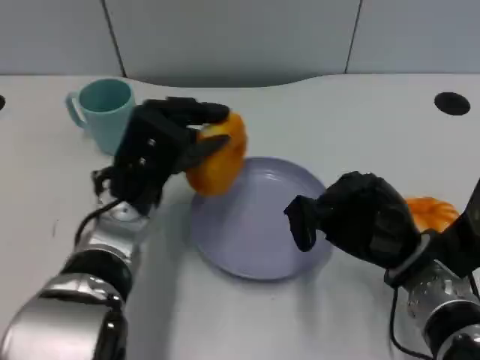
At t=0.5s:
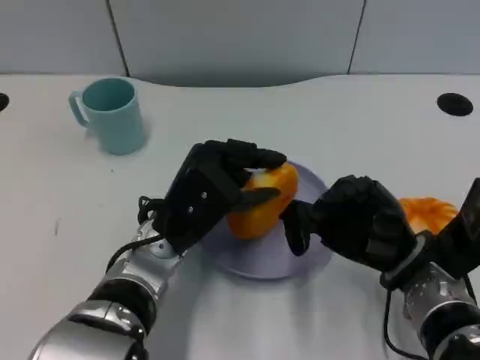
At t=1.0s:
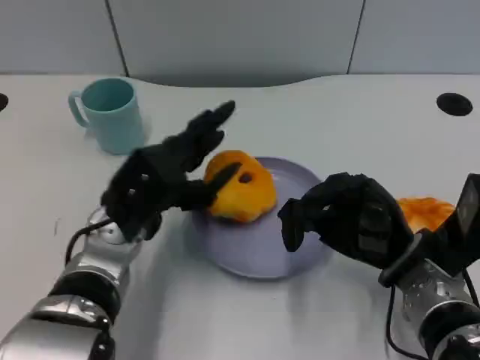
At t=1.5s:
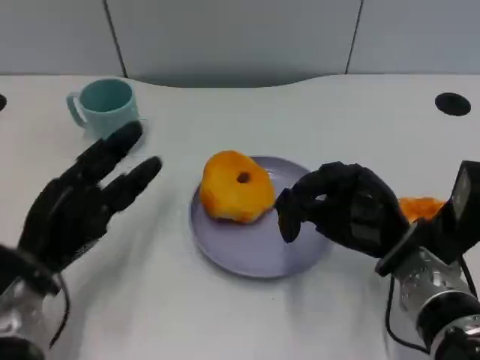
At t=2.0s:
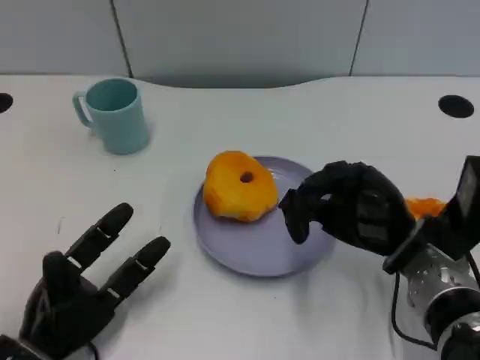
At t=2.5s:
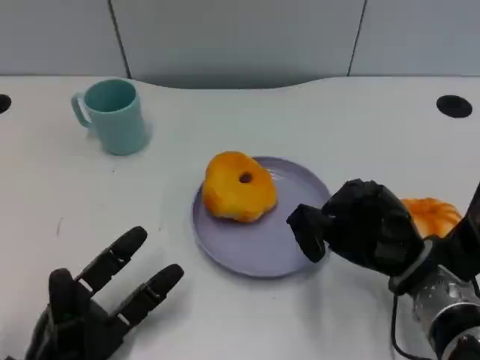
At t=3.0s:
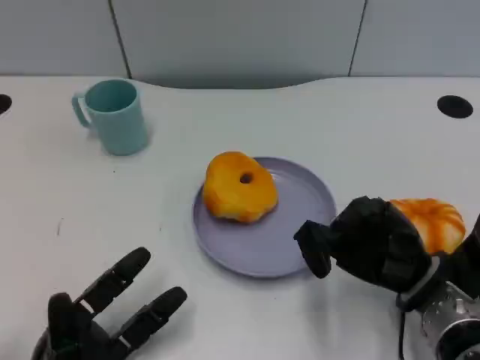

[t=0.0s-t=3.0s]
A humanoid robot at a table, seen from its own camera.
Task of the whole recording: Grasp the bread from the table and place it into the plate.
t=0.0s to t=1.5s: The left hand moves to the left, downward and backward, about 15 cm.
t=1.5s to t=3.0s: The left hand heads backward and downward, covering about 10 cm.

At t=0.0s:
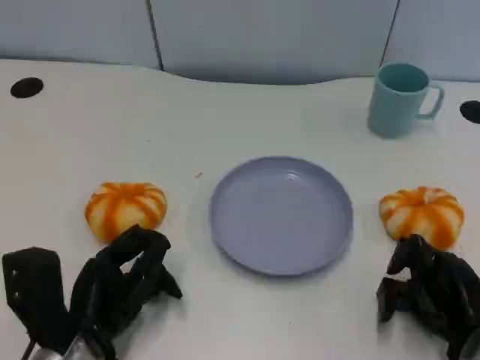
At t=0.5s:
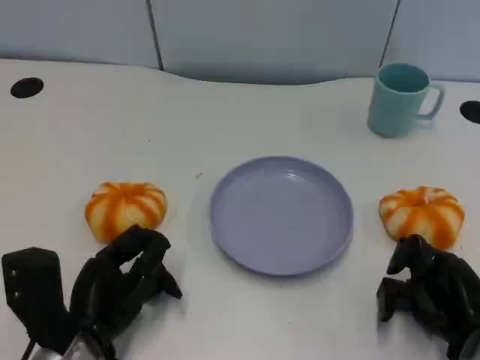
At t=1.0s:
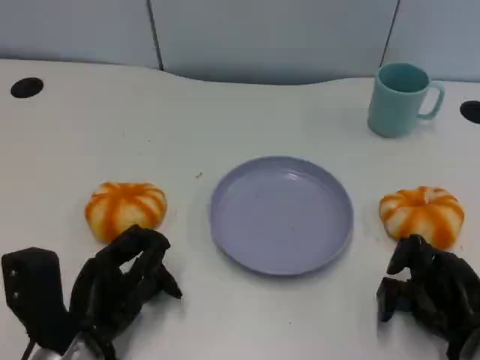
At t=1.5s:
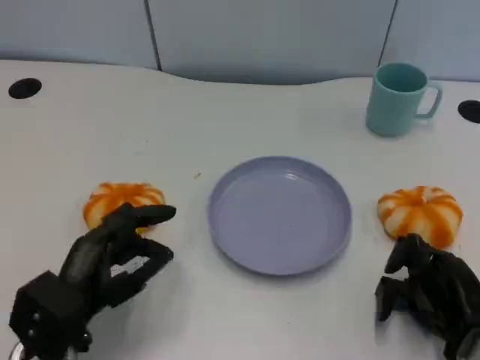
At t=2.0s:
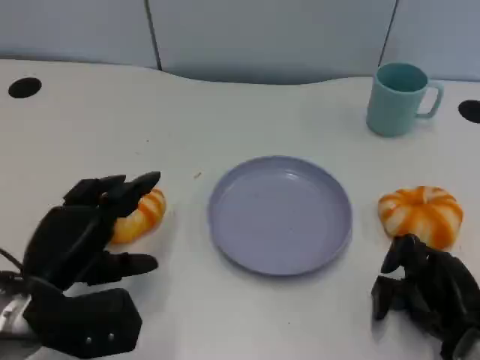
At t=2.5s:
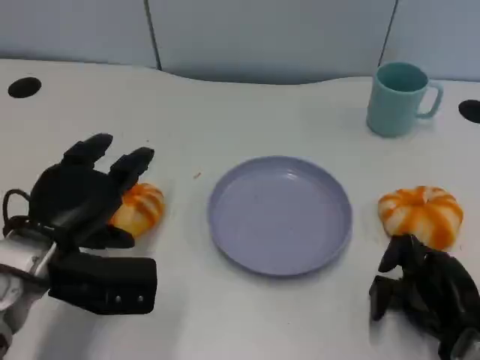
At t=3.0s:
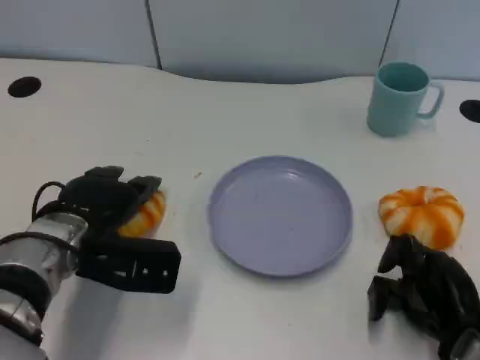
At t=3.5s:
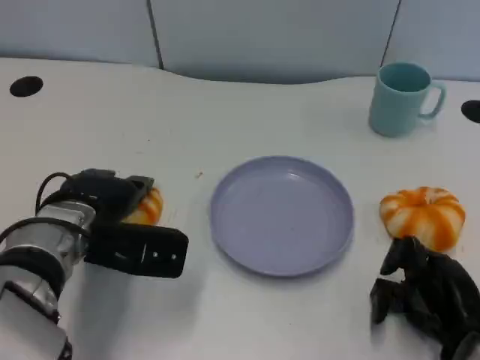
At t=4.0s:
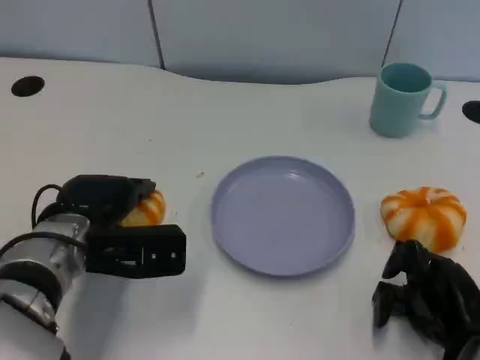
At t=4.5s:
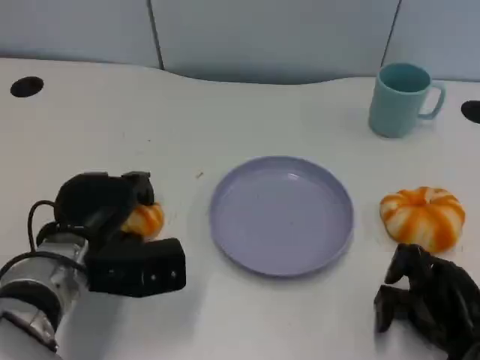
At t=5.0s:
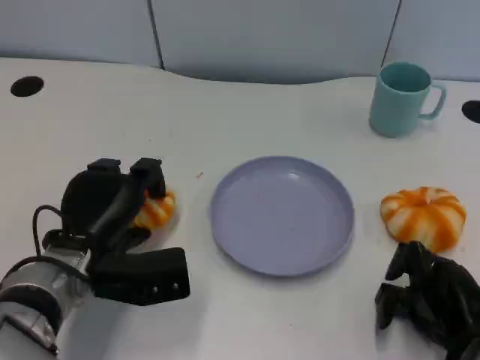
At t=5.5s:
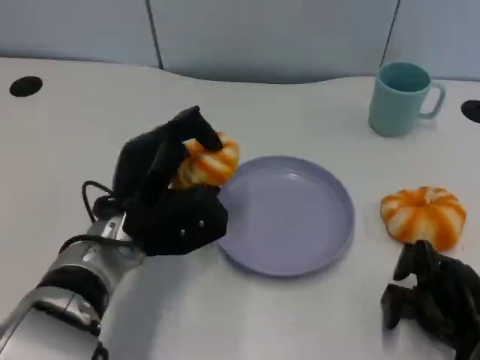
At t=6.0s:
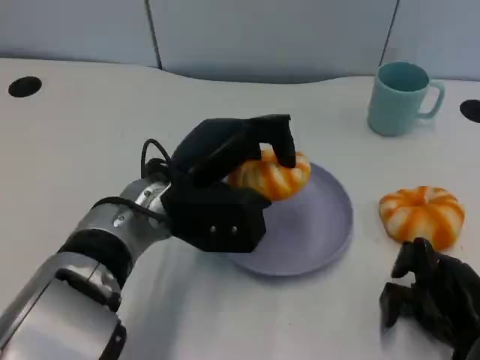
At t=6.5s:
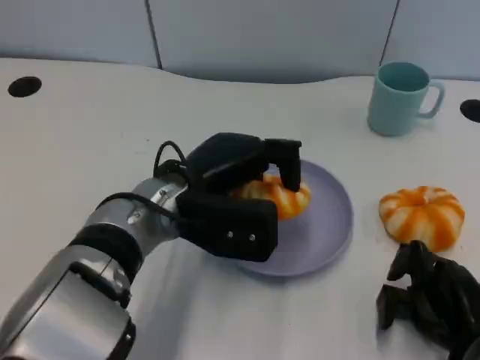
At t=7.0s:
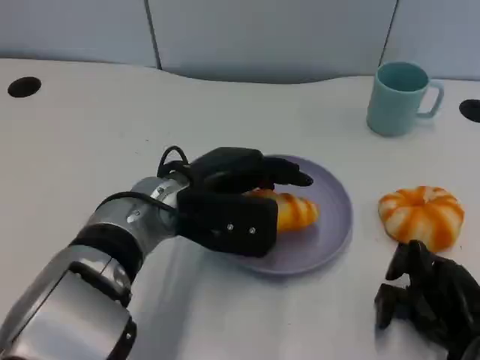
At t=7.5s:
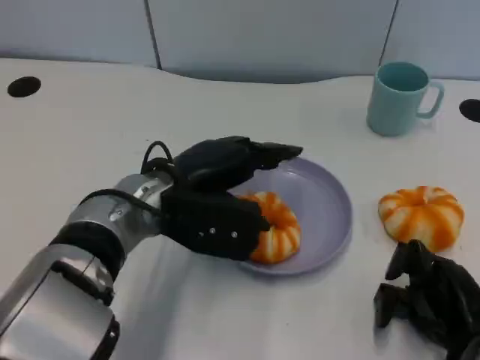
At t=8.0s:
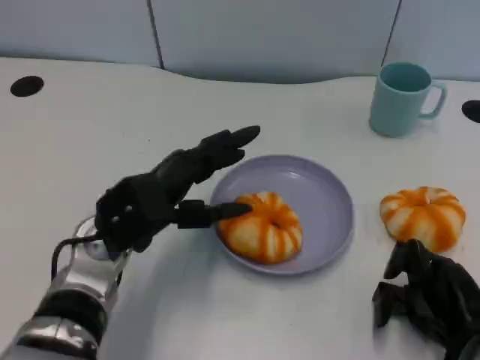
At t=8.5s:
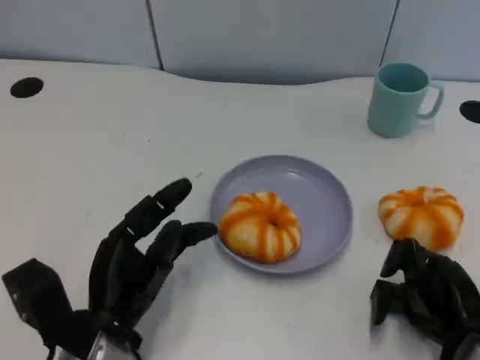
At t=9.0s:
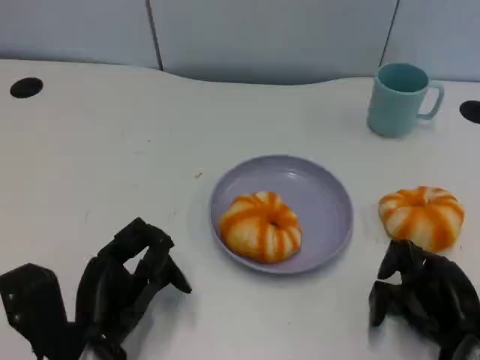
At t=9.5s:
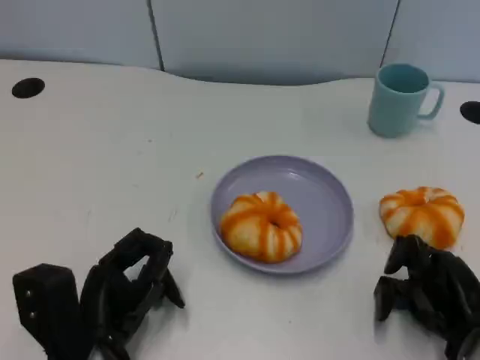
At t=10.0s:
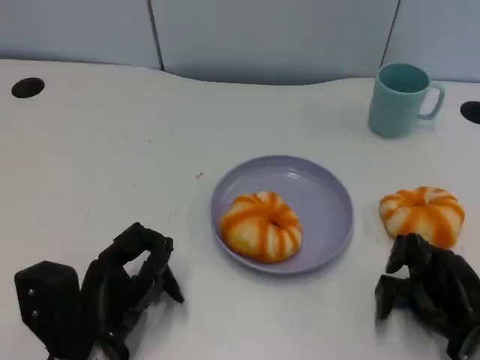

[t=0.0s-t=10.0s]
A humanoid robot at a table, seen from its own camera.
Task of the whole recording: Grasp the bread from the table and place it into the plate.
t=0.0s to t=2.0s: The left hand ends up about 5 cm from where it was.
t=2.0s to t=4.0s: The left hand shifts some 5 cm forward.
t=4.0s to t=6.0s: The left hand is displaced to the right and upward by roughly 10 cm.
t=6.0s to t=8.0s: The left hand heads to the left, covering roughly 5 cm.
t=8.0s to t=10.0s: The left hand travels backward and downward by roughly 10 cm.
